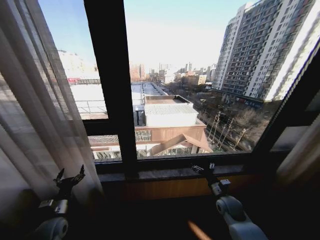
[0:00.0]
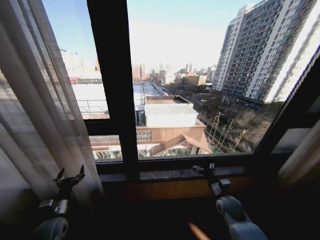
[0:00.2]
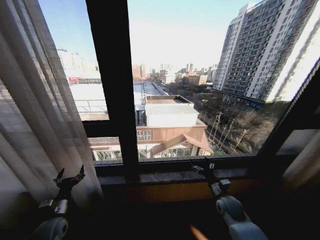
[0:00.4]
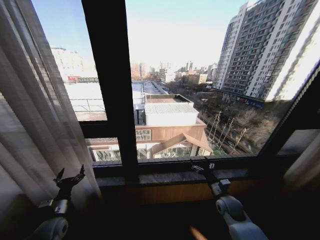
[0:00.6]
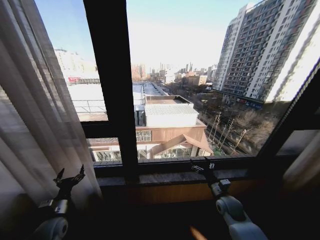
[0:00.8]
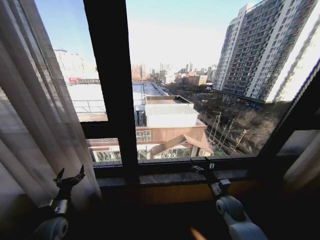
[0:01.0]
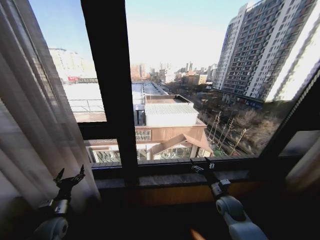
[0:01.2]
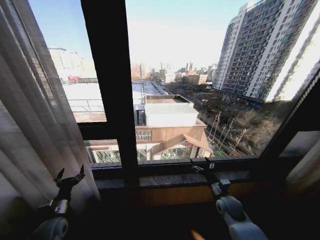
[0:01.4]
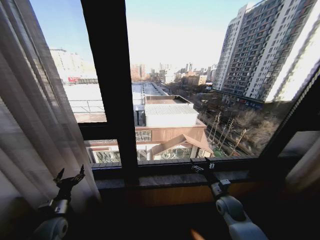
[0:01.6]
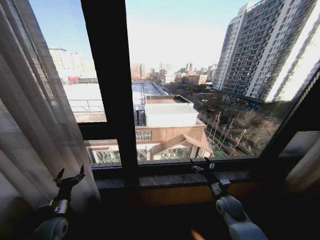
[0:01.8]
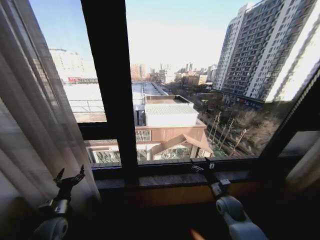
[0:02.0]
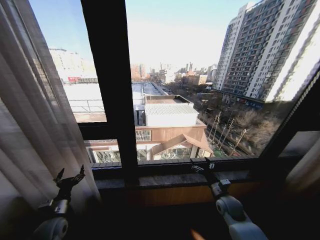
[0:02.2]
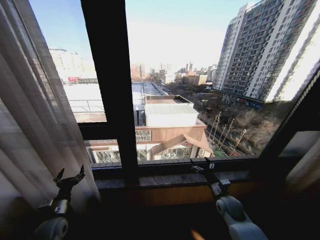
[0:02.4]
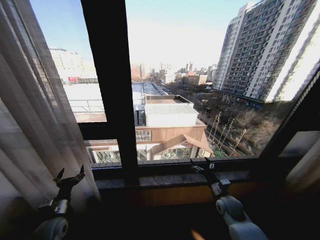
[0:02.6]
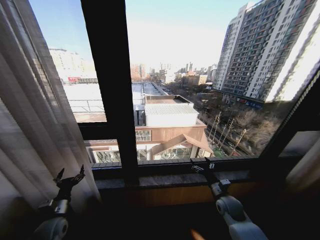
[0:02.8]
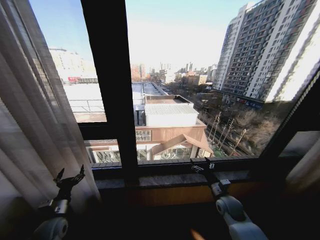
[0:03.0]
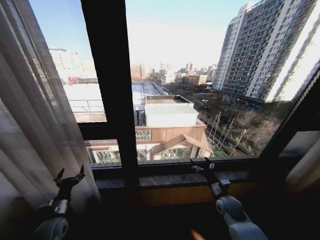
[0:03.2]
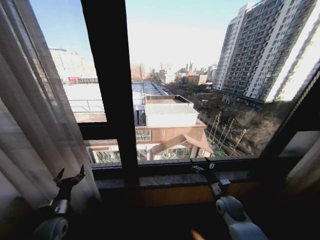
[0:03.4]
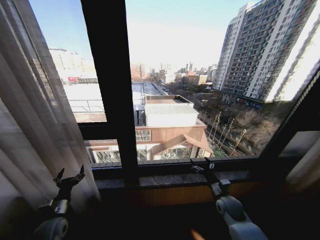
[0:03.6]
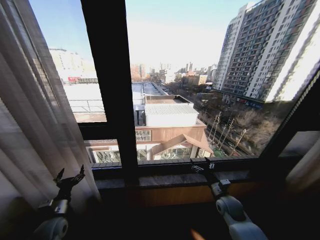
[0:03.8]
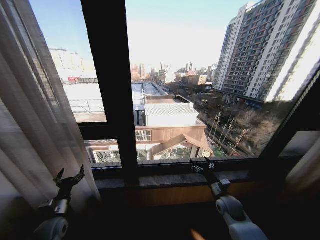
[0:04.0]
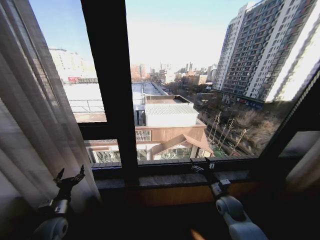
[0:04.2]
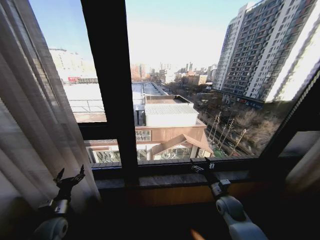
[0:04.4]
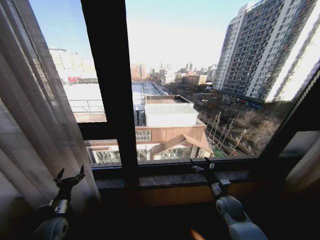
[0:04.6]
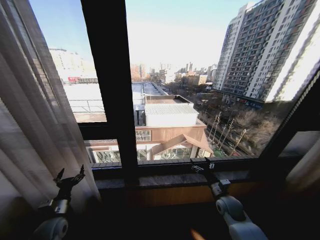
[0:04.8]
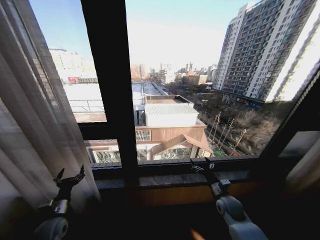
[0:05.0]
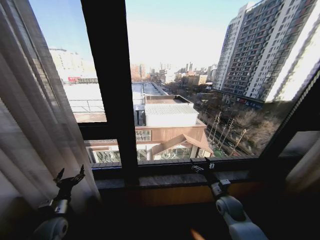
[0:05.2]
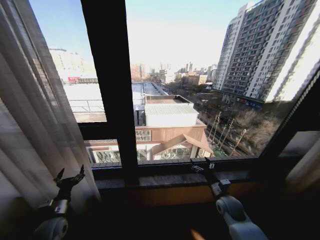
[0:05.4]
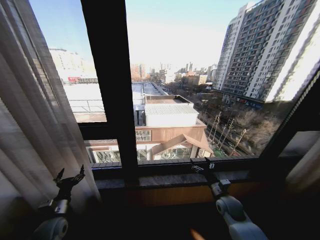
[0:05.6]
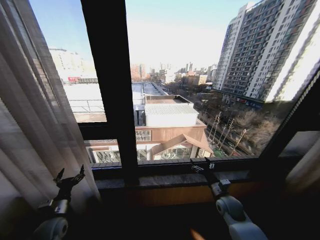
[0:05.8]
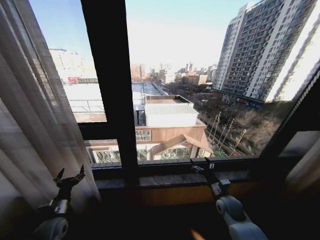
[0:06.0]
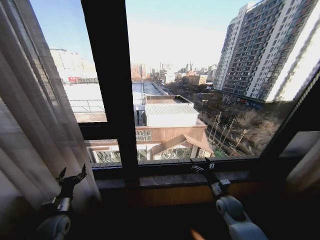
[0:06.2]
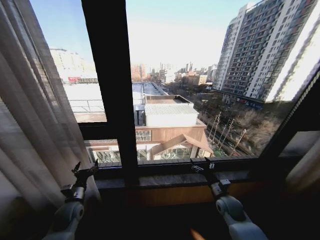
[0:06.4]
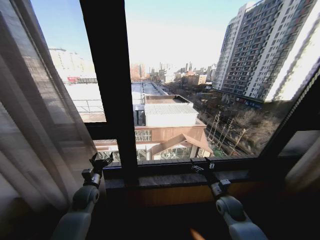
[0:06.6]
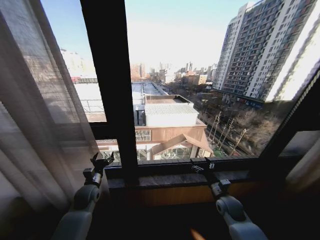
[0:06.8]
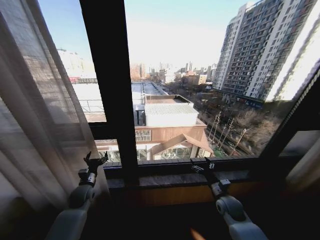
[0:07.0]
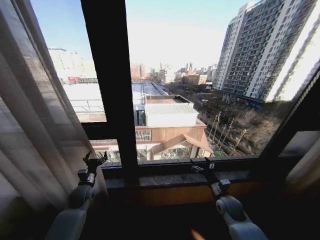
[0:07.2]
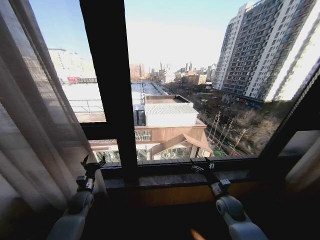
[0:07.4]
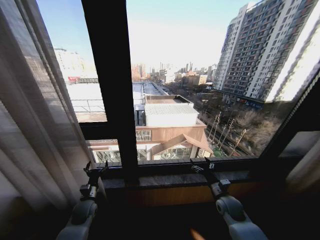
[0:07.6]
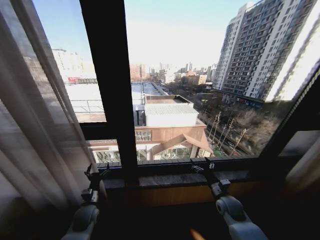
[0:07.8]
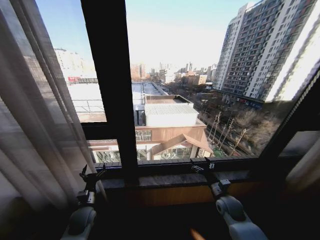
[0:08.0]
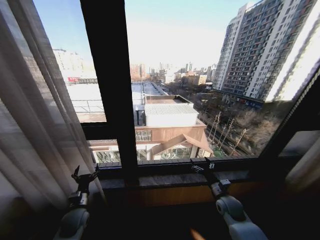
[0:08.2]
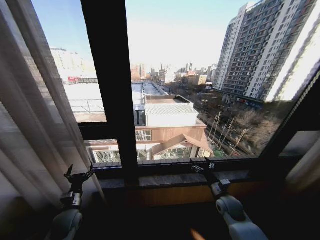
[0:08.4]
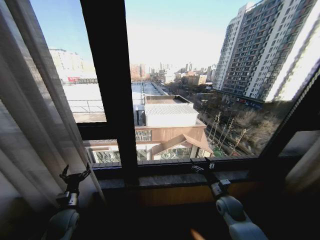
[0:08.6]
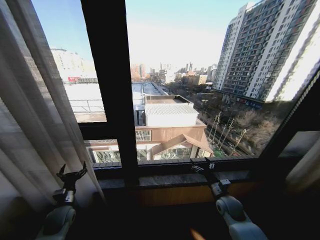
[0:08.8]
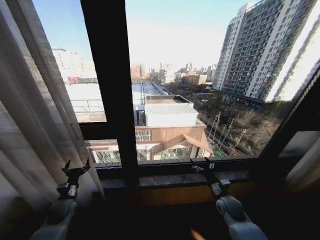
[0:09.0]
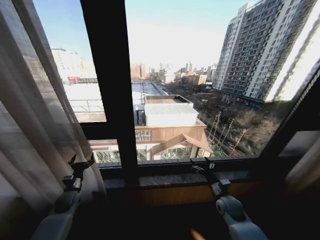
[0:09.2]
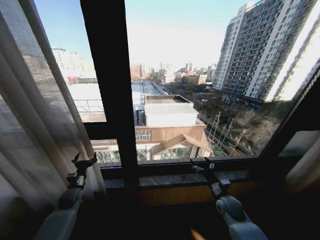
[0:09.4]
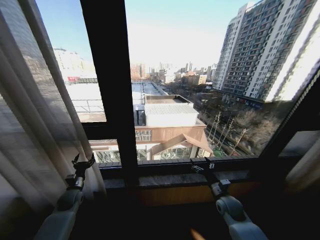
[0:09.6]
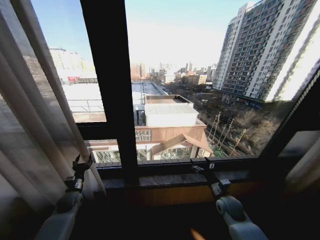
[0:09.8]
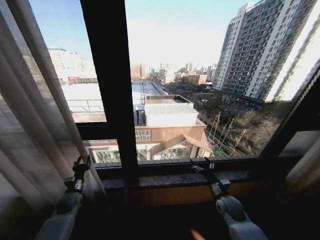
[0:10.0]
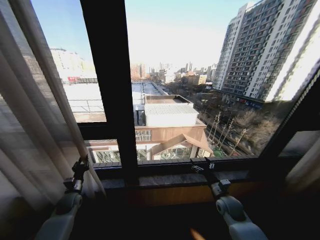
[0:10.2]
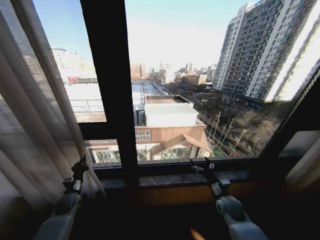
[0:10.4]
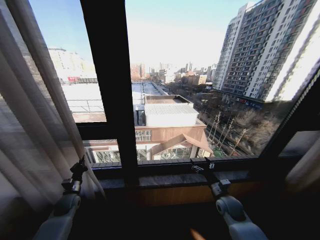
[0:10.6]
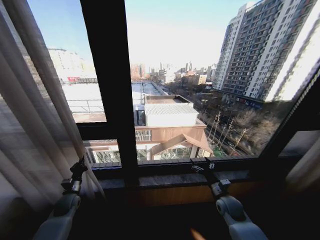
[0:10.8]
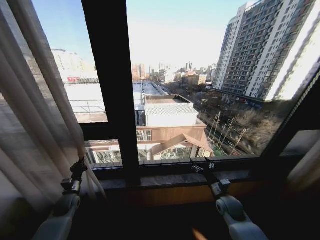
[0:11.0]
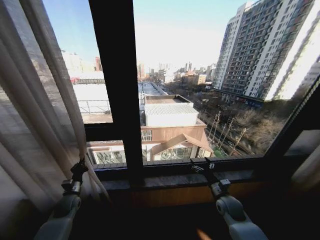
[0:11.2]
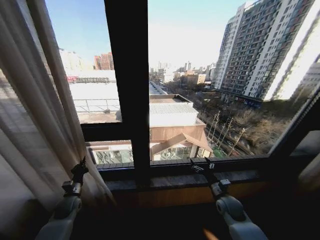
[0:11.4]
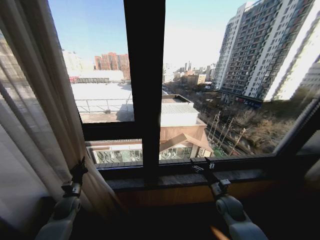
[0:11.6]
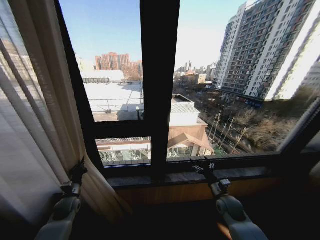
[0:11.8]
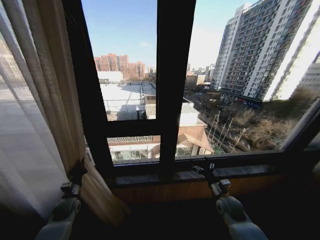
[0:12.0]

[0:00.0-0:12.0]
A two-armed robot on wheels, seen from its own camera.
Task of the whole recording: Open the curtains by pulling them apart, changing their state from closed to fully open.
0:00.0 to 0:06.0: Both grippers stay about where they are.
0:06.0 to 0:07.6: The left gripper goes about 10 cm forward and to the right.
0:07.6 to 0:09.0: The left gripper moves to the left, approximately 10 cm.
0:09.0 to 0:10.4: The left gripper closes its fingers.

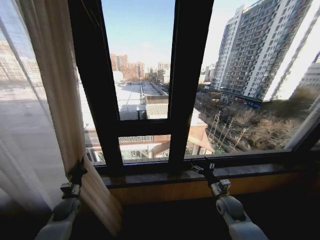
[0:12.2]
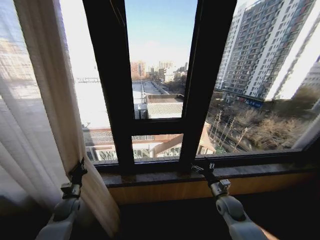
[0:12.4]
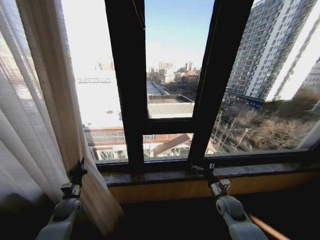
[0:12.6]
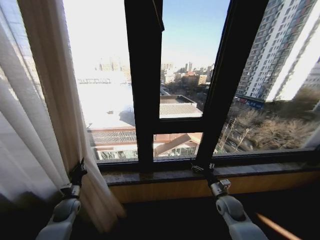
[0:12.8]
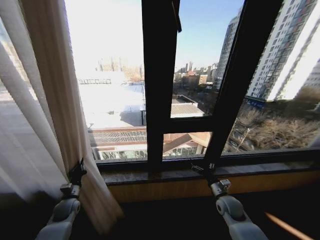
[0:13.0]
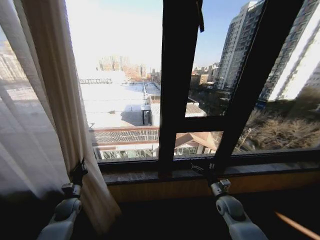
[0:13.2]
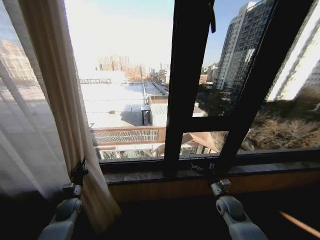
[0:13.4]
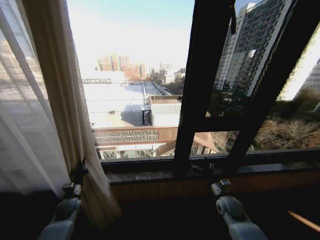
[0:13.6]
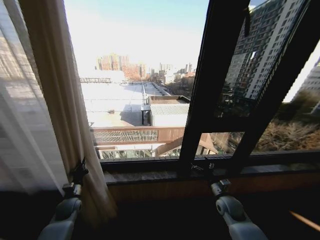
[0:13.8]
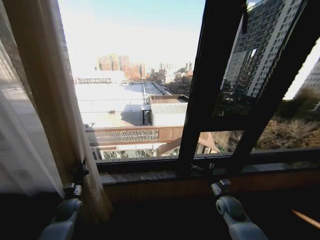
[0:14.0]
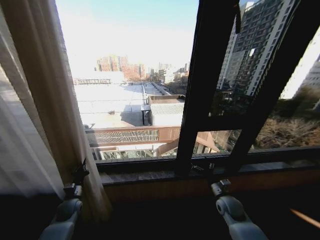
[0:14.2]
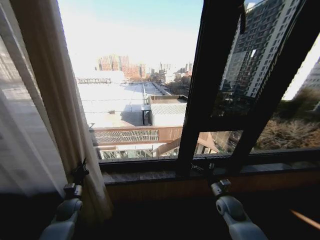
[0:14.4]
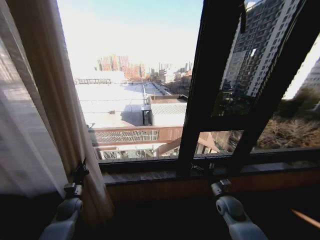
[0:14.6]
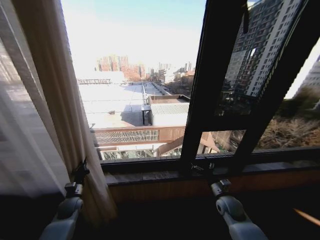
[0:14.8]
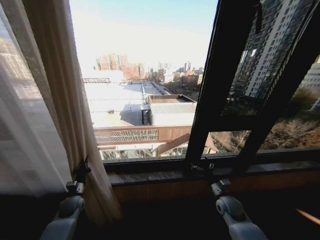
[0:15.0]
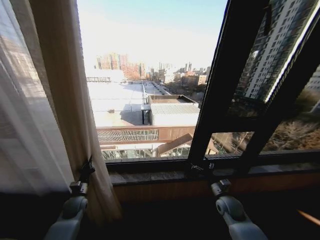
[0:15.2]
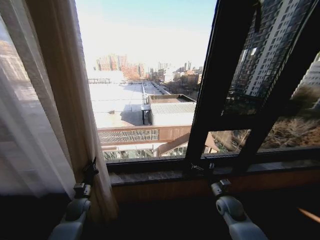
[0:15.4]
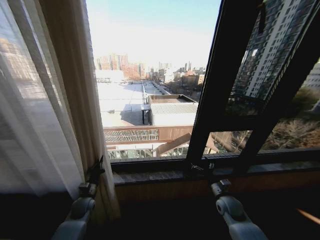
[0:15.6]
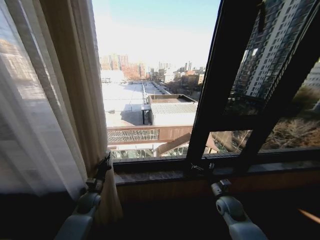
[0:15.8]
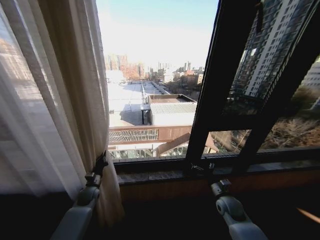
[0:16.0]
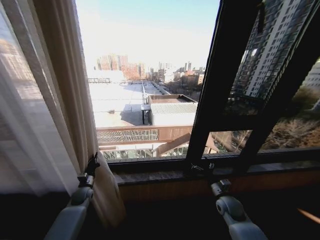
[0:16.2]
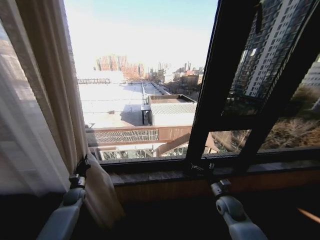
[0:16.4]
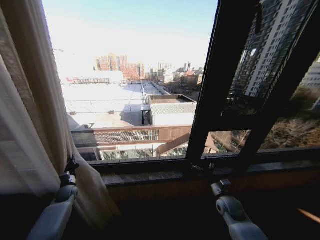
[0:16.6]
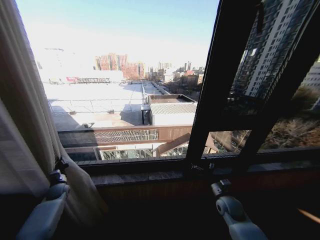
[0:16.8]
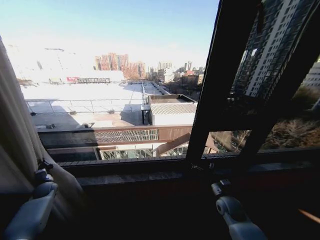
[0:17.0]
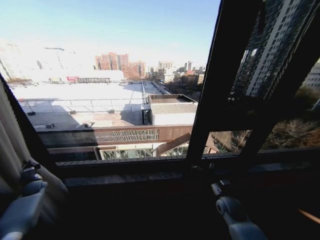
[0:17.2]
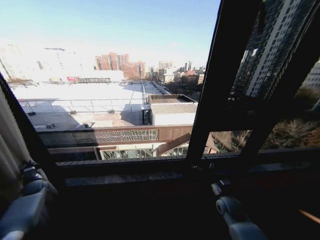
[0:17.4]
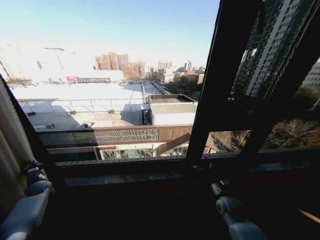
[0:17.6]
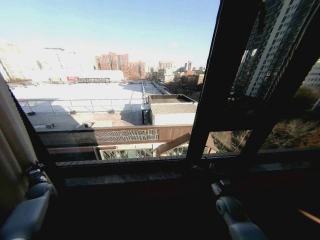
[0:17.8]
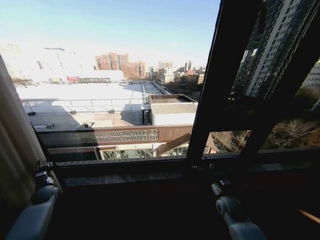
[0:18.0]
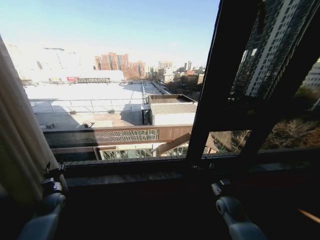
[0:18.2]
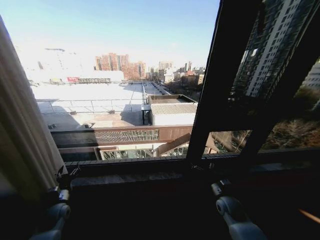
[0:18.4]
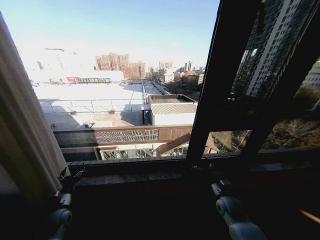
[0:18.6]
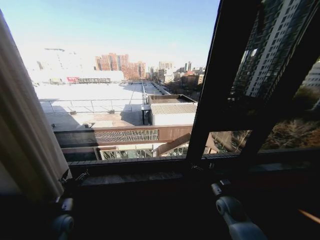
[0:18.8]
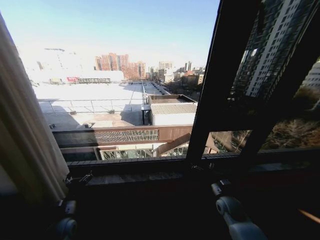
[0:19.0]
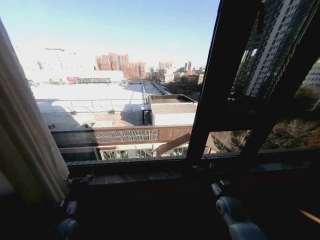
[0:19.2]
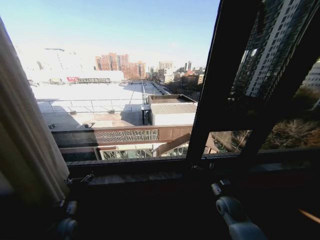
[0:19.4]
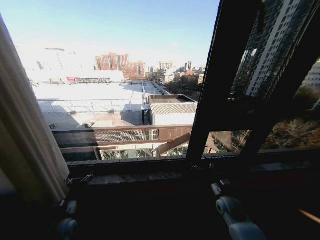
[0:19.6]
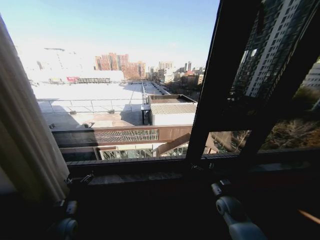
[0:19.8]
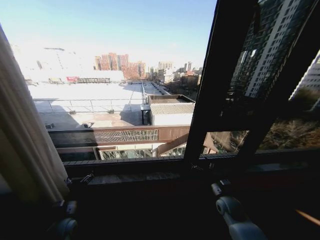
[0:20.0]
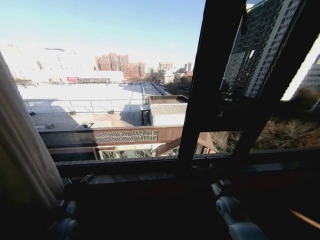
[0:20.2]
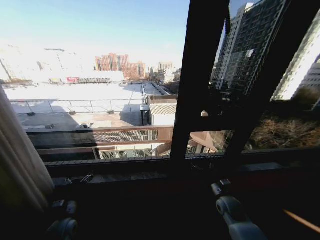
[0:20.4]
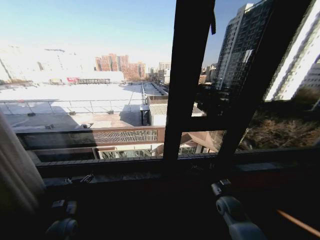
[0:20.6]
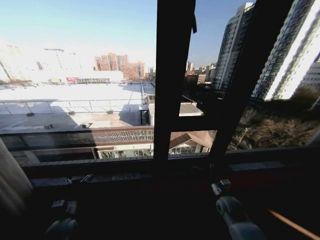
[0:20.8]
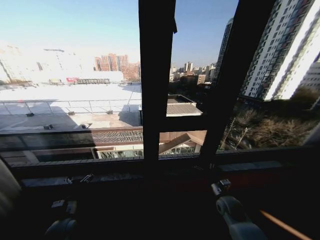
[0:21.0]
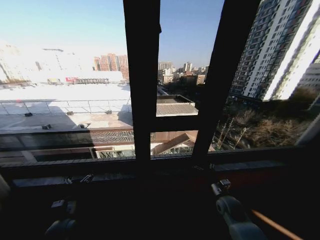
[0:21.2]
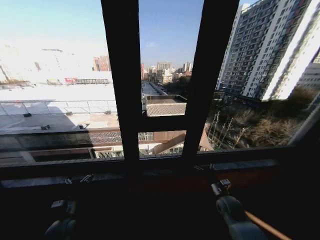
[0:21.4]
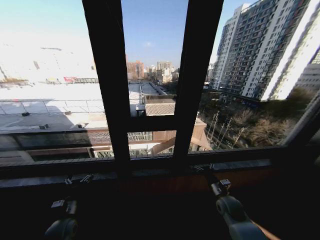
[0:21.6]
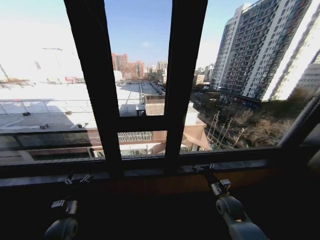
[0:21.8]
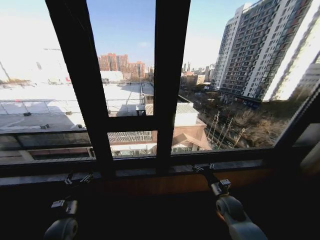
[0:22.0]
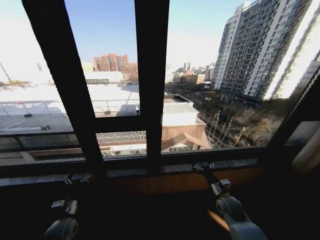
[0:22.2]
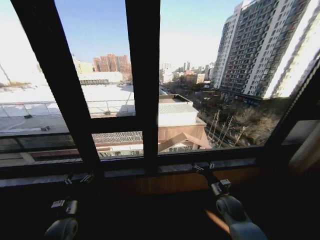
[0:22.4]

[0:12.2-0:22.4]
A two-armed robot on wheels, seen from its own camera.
Task of the whole recording: Open the curtains by pulling them apart, changing their state from closed to fully open.
0:15.2 to 0:16.6: The left gripper moves to the left and forward, about 10 cm.
0:16.6 to 0:18.0: The left gripper is displaced to the left by approximately 10 cm.
0:18.0 to 0:19.4: The left gripper travels to the right and backward by about 25 cm, and opens up.
